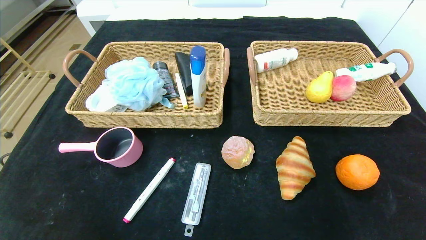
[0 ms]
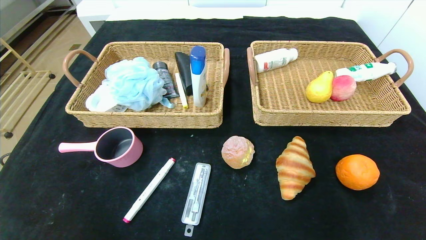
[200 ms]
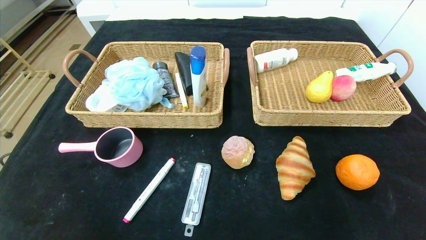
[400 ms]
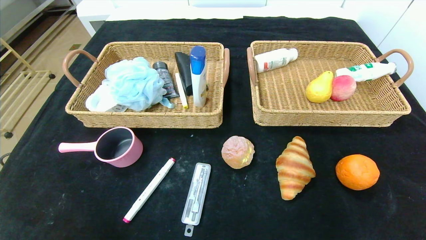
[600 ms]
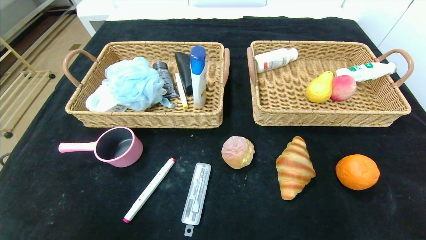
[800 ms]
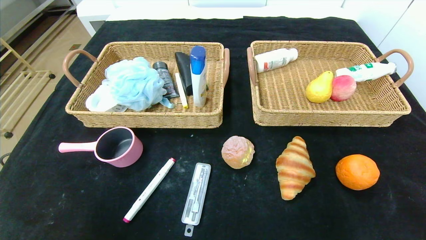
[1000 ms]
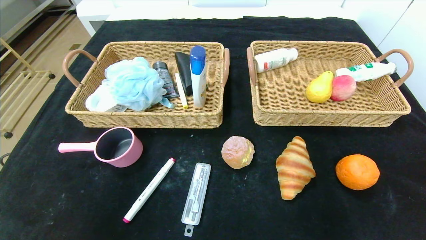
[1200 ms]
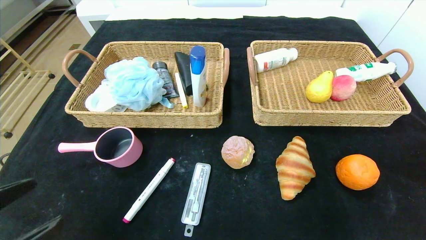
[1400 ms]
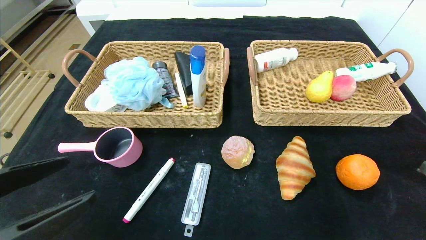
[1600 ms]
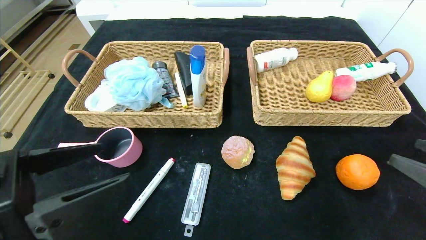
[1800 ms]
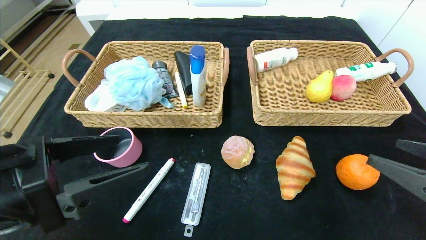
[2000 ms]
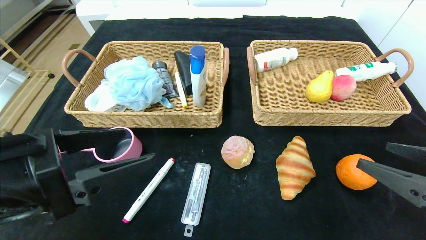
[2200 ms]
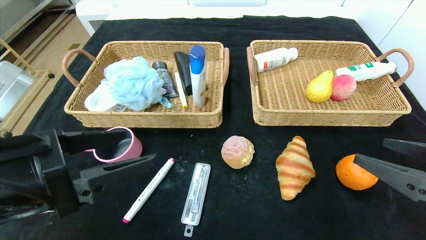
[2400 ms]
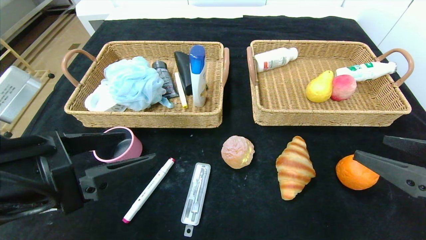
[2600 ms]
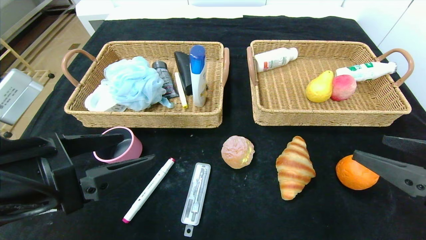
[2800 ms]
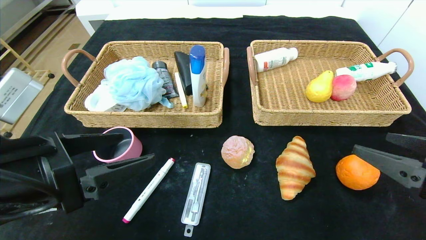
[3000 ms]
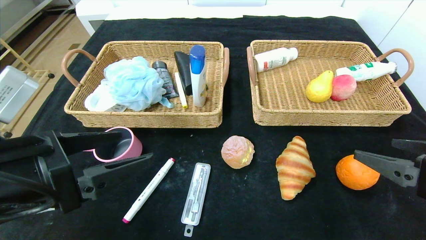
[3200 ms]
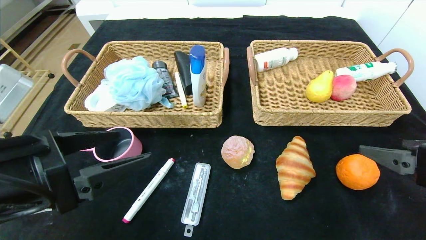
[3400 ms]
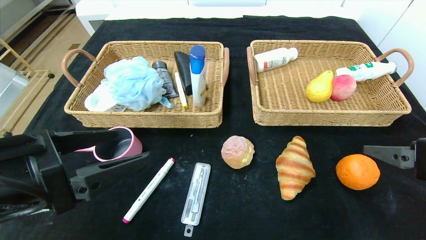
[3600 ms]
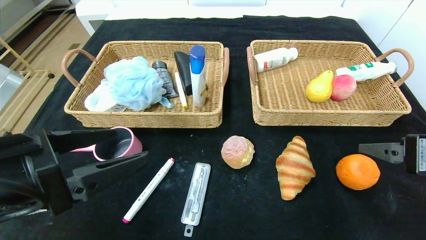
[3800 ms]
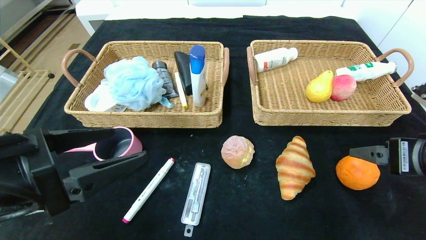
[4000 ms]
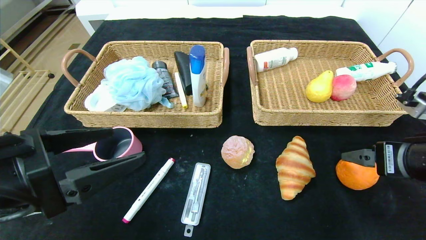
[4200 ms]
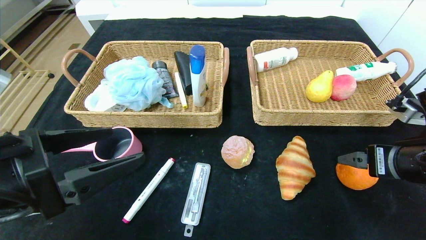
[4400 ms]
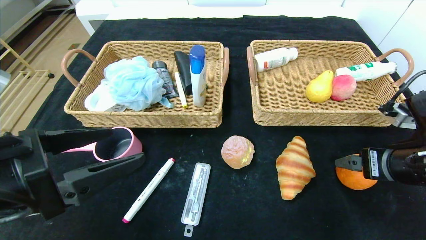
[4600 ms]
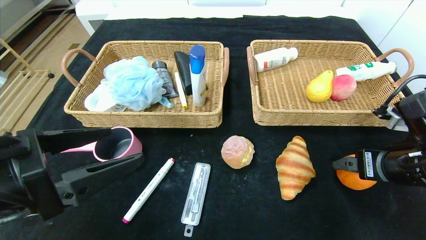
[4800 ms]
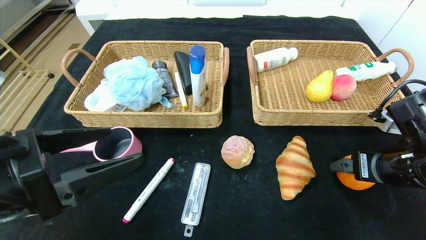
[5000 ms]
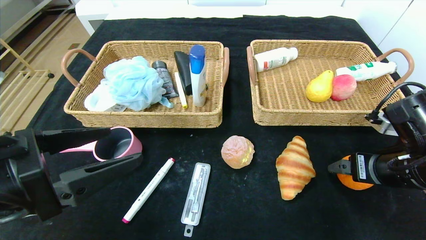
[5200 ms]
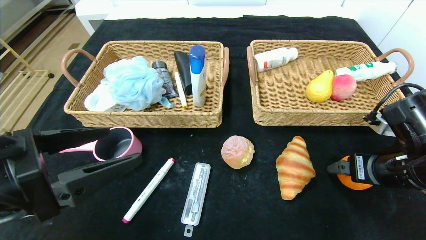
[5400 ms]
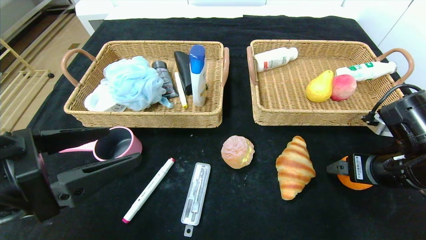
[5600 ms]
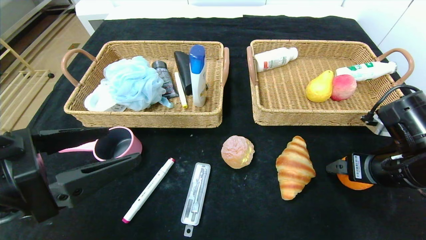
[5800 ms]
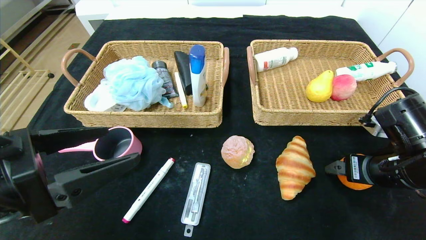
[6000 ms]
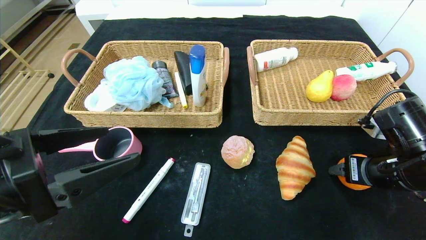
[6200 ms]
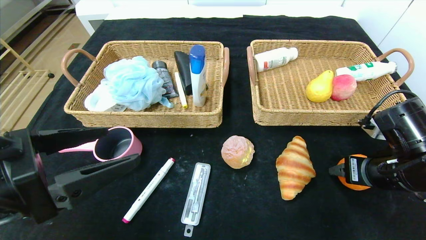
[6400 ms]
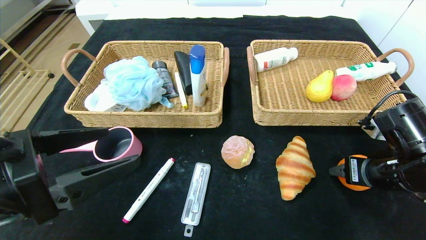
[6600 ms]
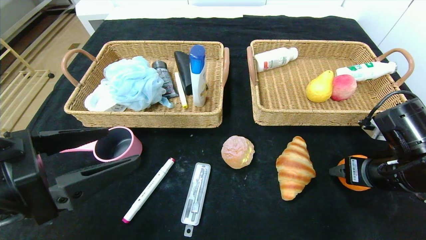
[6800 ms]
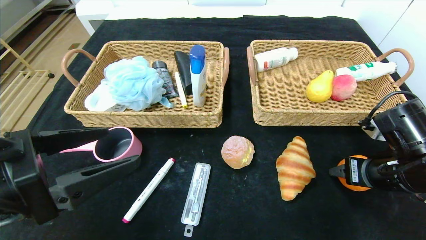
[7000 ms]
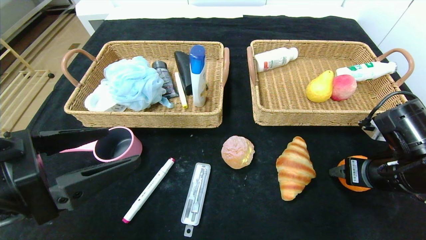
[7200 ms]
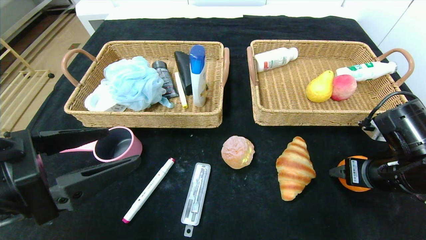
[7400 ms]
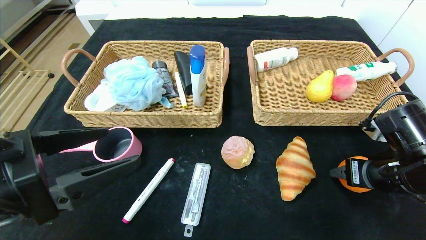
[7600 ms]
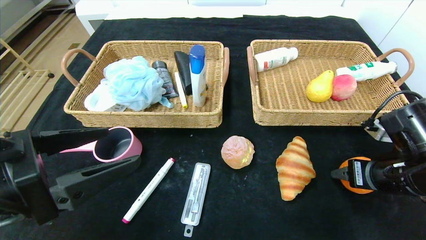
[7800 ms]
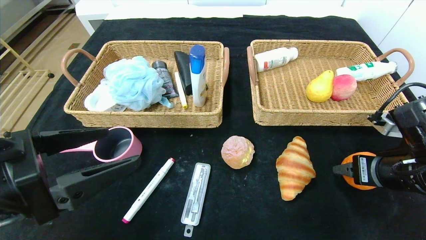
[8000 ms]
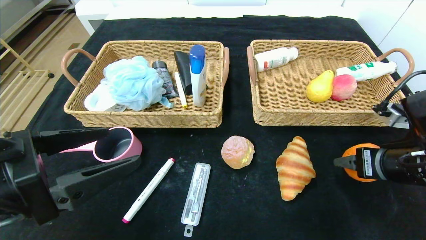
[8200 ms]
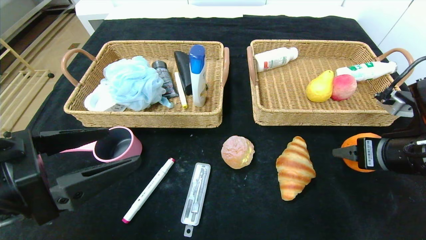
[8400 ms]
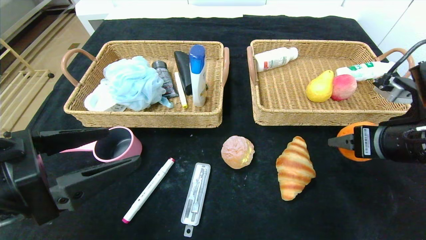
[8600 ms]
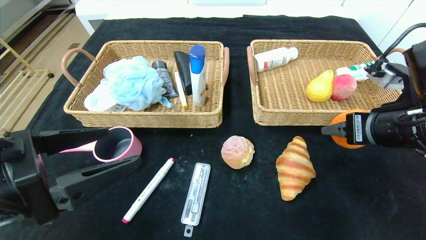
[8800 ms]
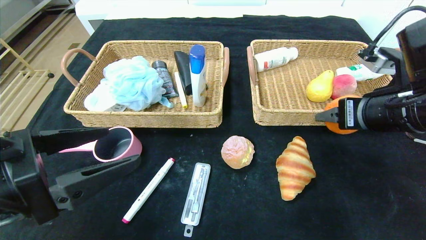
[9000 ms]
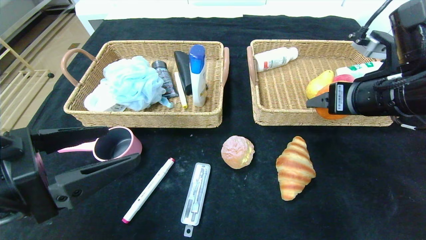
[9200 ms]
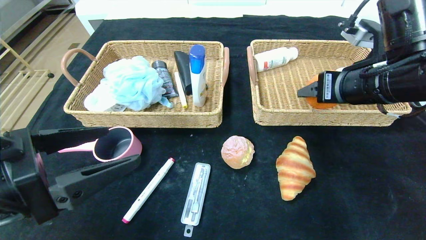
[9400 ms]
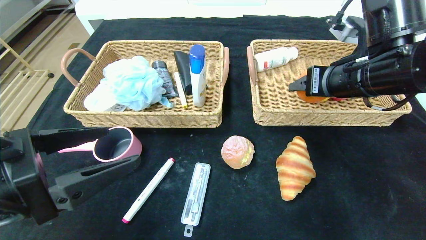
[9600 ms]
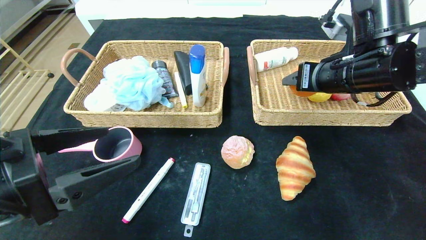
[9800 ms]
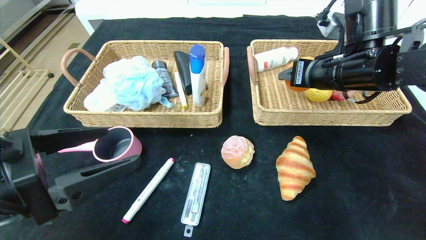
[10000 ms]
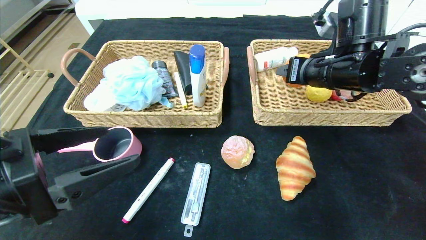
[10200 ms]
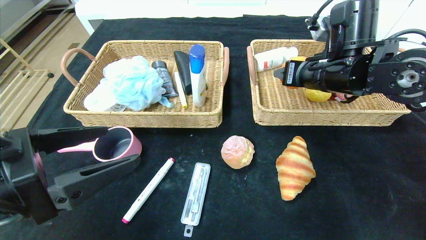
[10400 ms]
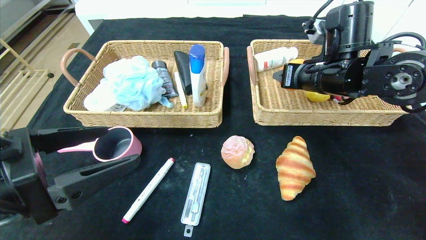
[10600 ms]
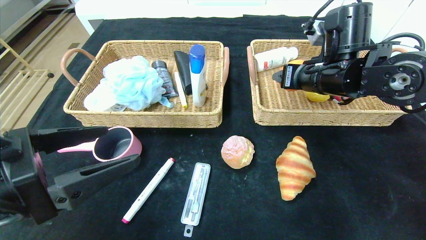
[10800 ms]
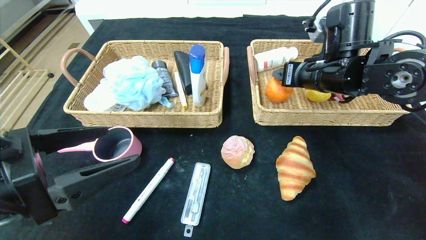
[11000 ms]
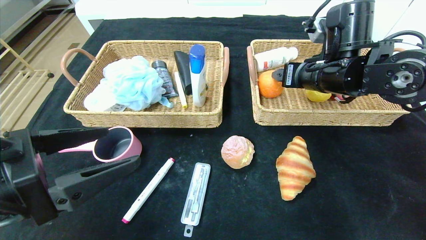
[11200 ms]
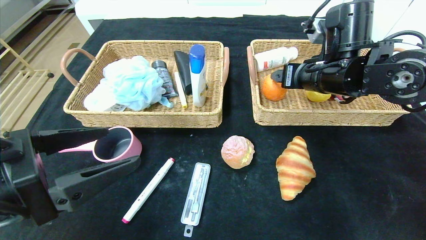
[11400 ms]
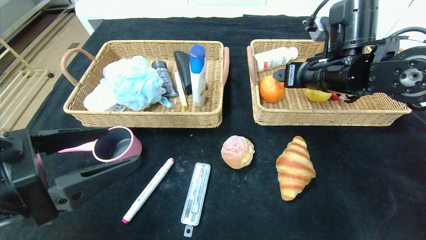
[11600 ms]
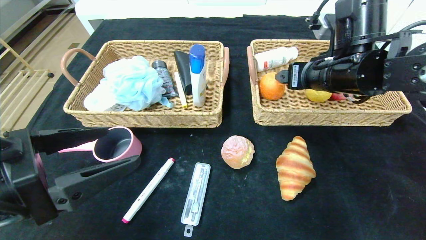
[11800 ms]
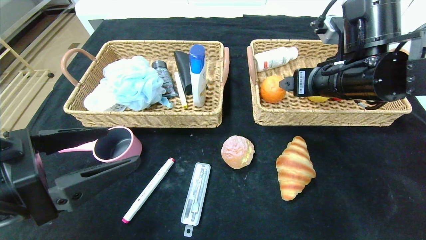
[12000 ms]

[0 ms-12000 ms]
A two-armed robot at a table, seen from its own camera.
0 ms to 1600 ms: The grippers both shift upward and forward by some 20 cm.
1600 ms to 3000 ms: The two grippers go roughly 5 cm forward.
3000 ms to 4400 ms: The right gripper travels forward by roughly 5 cm.
4400 ms to 6000 ms: The grippers move only a little.
6000 ms to 7600 ms: The right gripper closes.
7600 ms to 9000 ms: The right gripper shifts some 10 cm upward.
9000 ms to 10400 ms: The right gripper travels forward and to the left by approximately 10 cm.
10400 ms to 12000 ms: The right gripper opens.

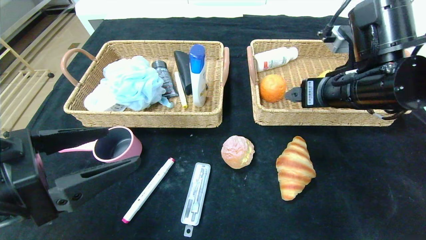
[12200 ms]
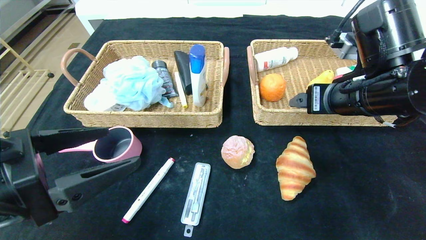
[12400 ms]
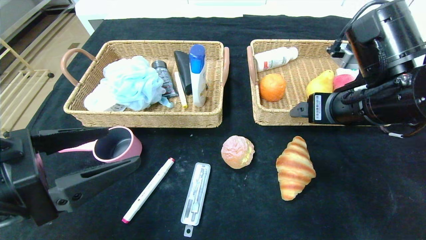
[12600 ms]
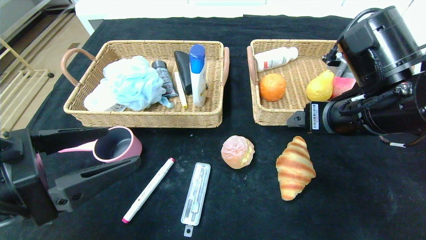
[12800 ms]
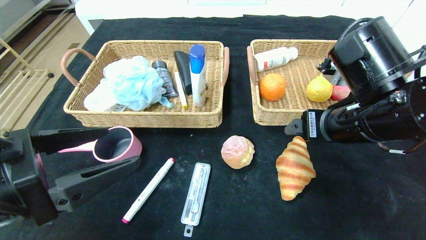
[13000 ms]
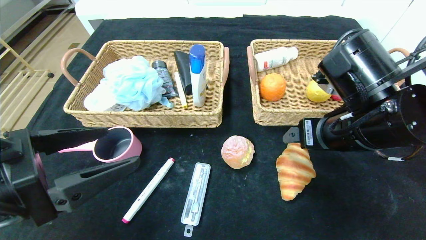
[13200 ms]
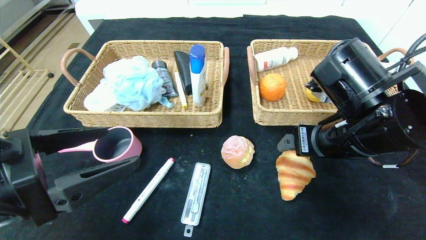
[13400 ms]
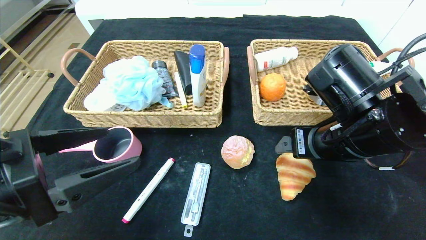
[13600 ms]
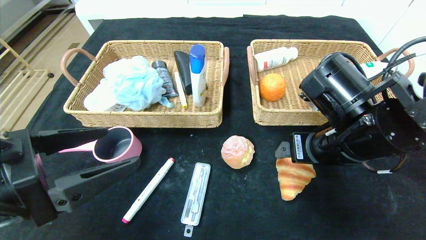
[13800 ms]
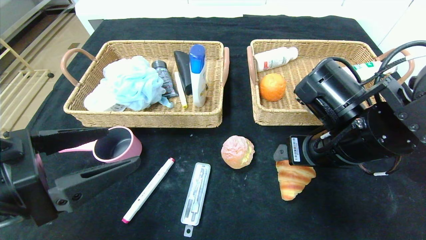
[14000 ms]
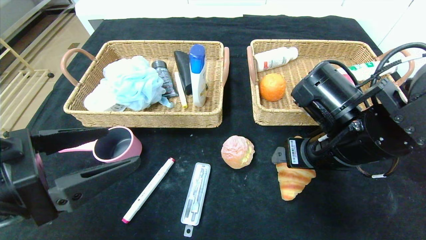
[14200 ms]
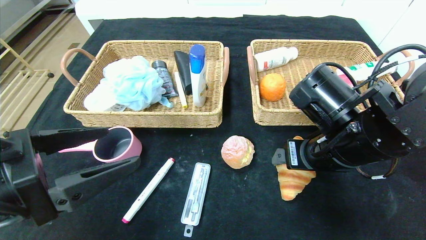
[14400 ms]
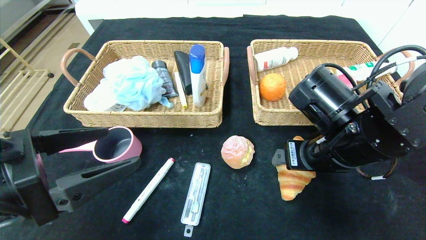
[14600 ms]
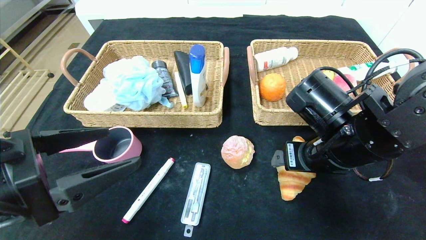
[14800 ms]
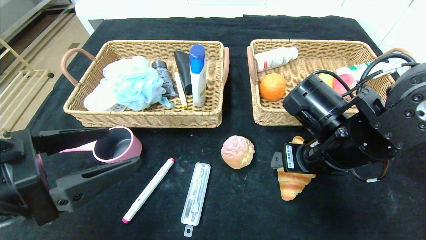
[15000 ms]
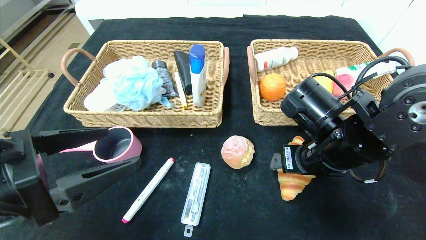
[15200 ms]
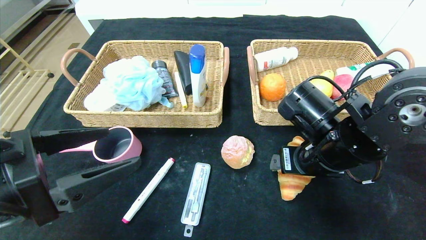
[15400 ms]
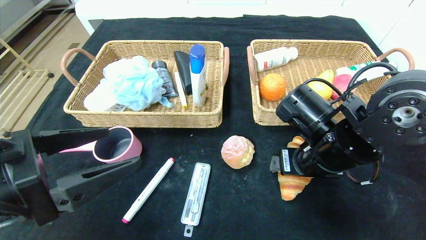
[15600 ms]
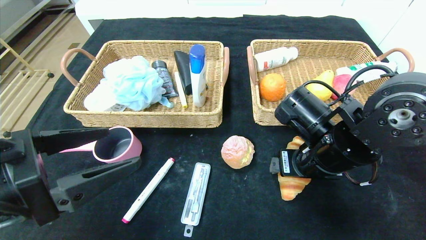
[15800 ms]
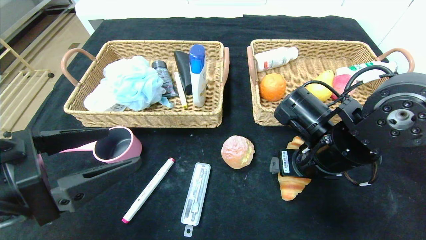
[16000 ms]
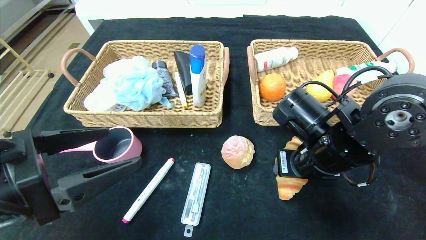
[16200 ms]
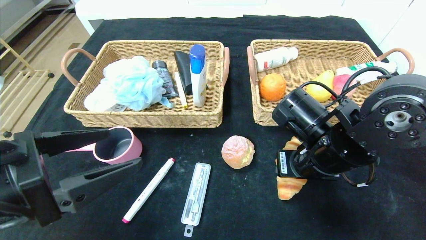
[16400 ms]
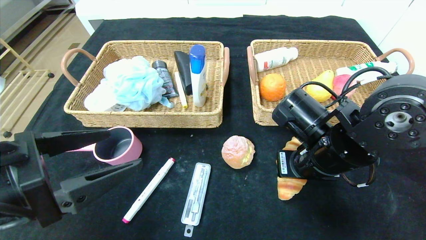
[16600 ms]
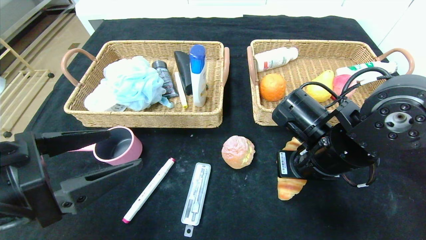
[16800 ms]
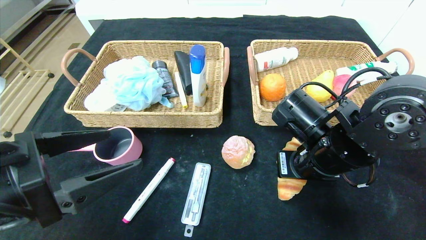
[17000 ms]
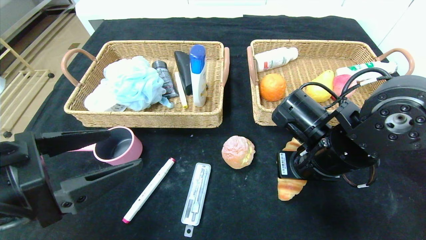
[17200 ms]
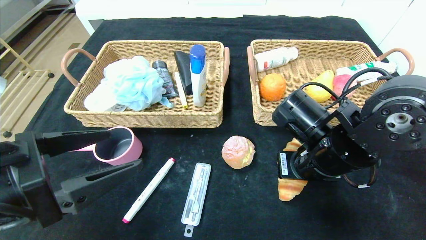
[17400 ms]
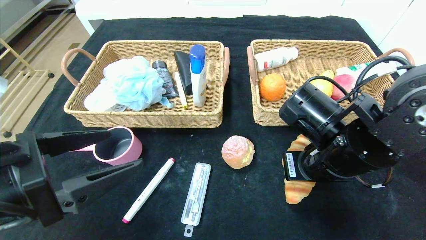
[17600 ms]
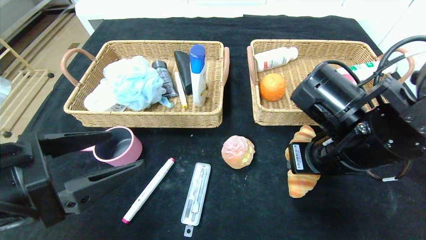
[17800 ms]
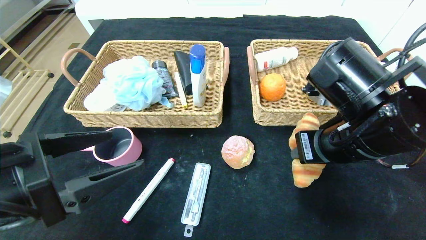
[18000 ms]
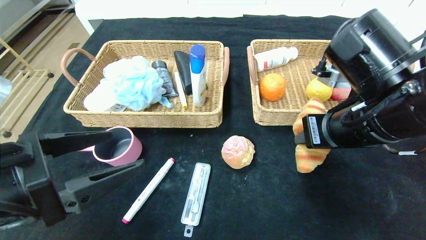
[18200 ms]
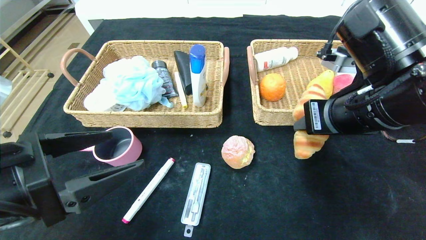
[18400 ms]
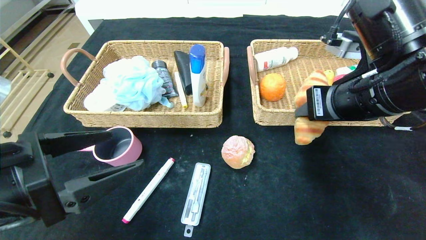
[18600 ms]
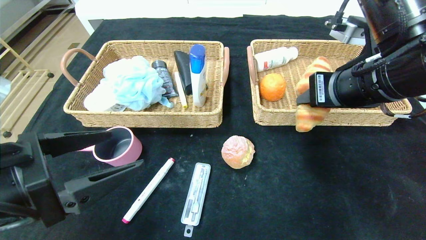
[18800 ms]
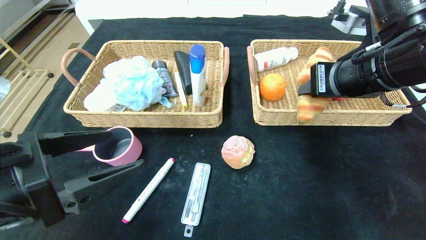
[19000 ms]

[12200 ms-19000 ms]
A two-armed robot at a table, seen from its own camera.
12200 ms to 13600 ms: The right gripper ends up some 5 cm from where it was.
13600 ms to 15000 ms: The grippers stay close to where they were, moving slightly.
15000 ms to 16200 ms: The right gripper closes up.
16200 ms to 17600 ms: The right gripper closes up.
17600 ms to 19000 ms: The right gripper is displaced upward by about 10 cm.
